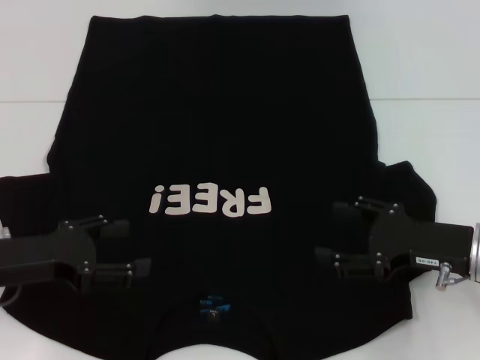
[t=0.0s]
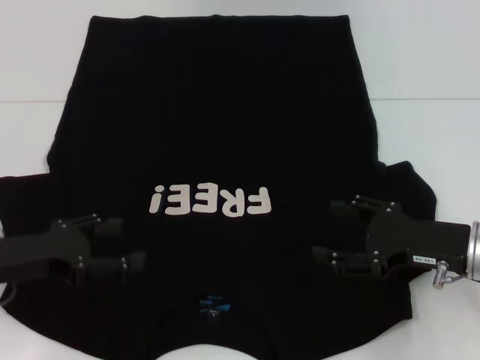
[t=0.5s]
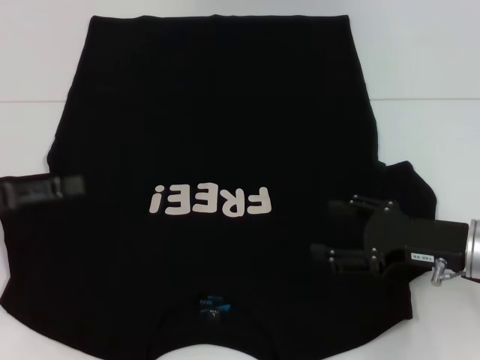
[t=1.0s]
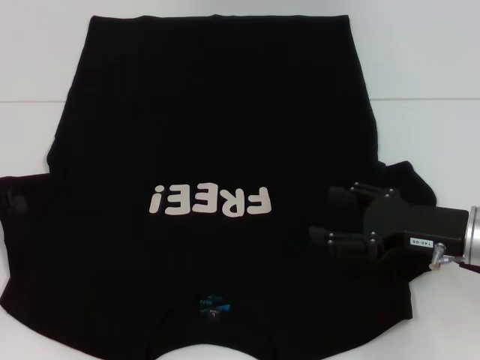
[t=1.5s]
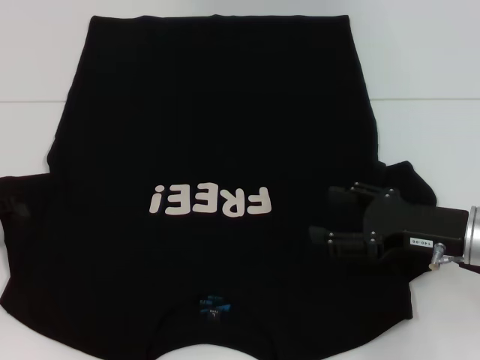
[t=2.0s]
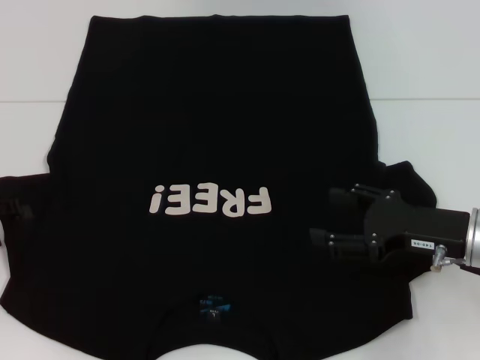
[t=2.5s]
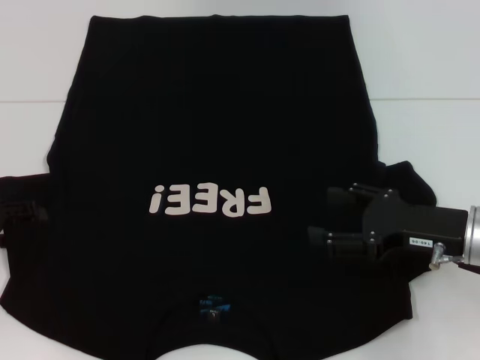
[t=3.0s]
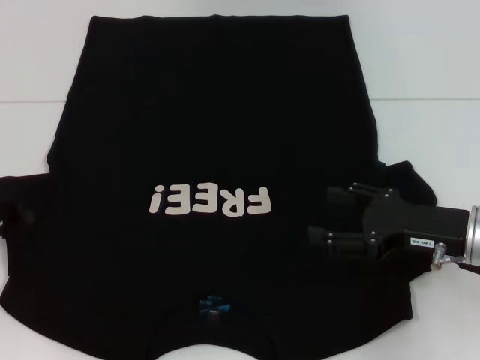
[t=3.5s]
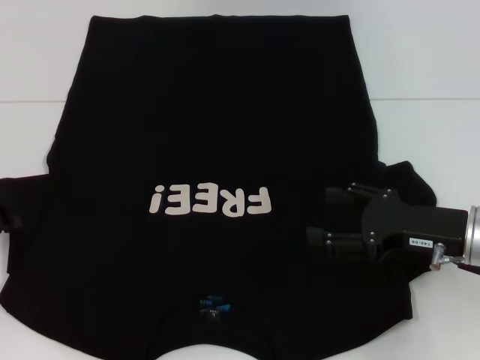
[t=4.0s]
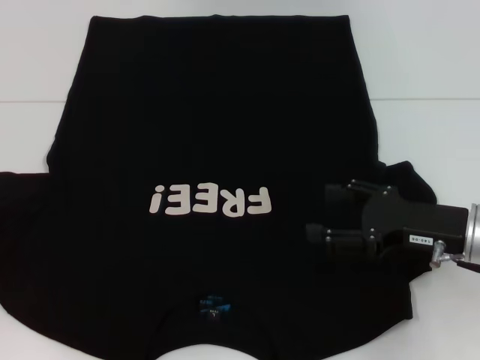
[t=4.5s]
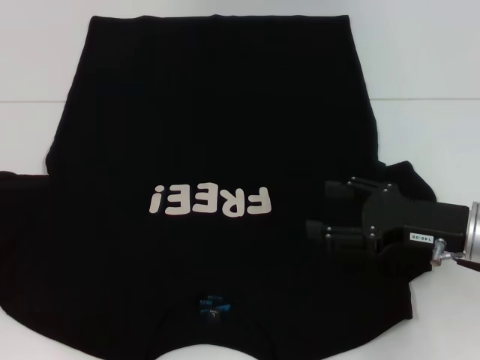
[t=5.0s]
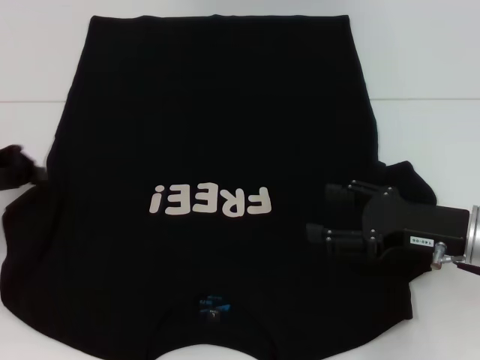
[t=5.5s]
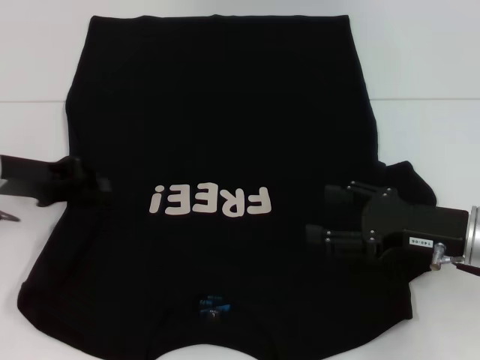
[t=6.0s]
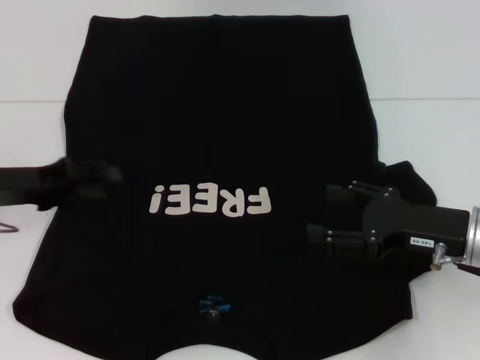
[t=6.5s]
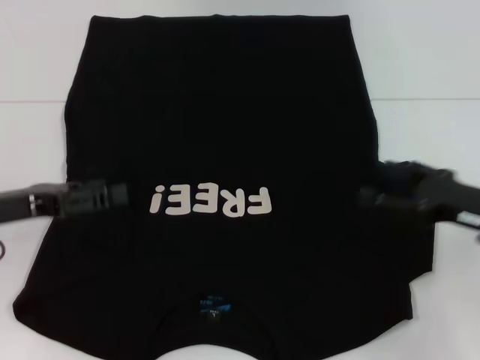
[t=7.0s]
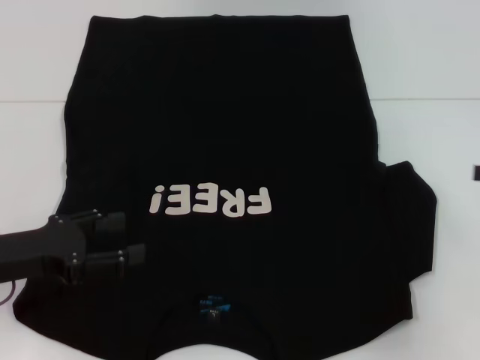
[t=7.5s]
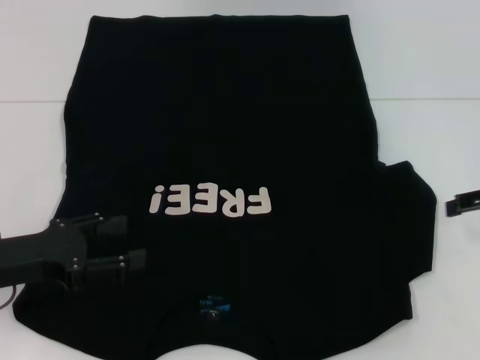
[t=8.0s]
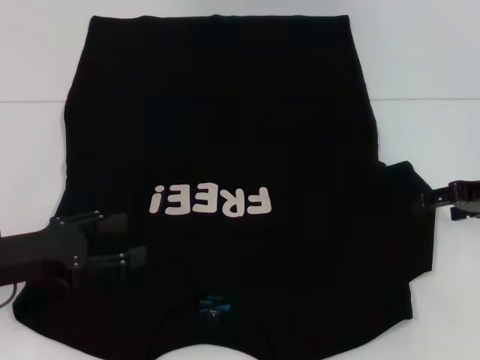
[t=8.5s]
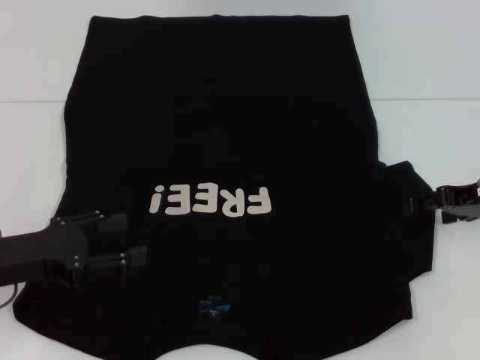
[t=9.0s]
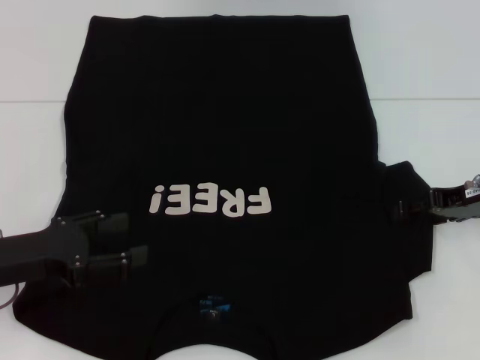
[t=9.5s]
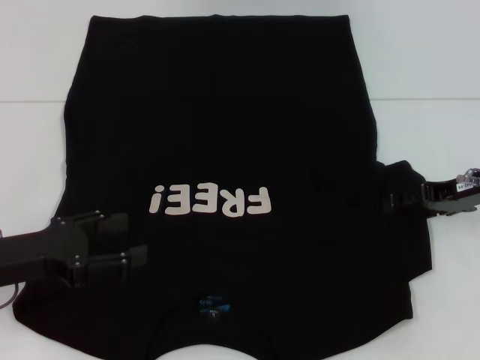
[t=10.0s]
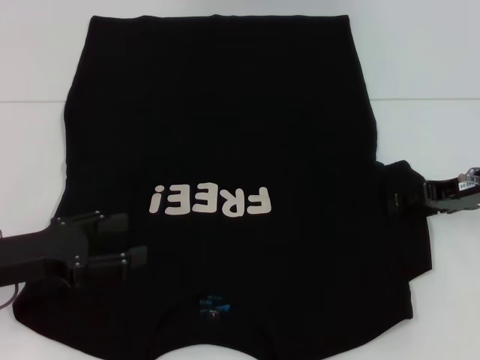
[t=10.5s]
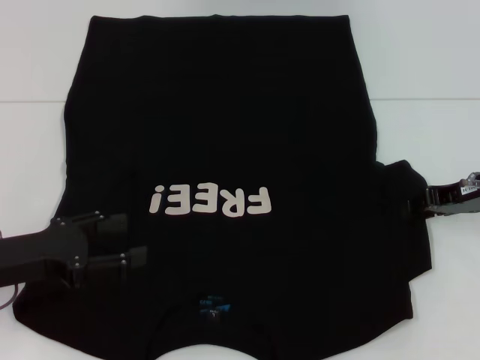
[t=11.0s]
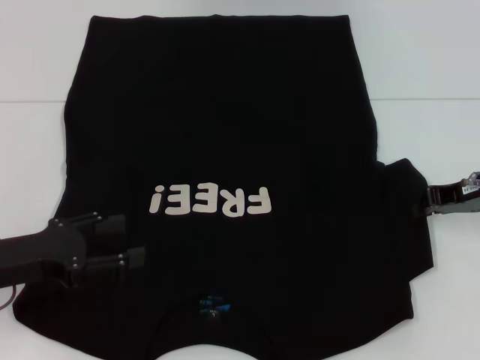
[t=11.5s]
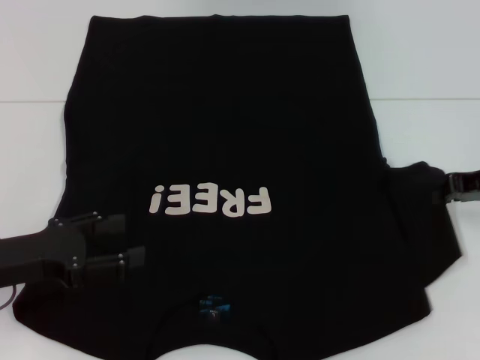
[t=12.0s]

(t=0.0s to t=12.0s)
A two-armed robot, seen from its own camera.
Step, t=0.0s - t=9.0s: Fold the bottom left sleeve with your left hand.
t=4.0s - t=6.0s: The left gripper heads to the right, covering approximately 10 cm.
t=6.0s - t=8.0s: The left gripper heads backward, covering about 10 cm, and opens its fingers, while the right gripper travels to the right and upward by some 10 cm.
t=8.0s - t=10.0s: The right gripper heads to the left, covering roughly 5 cm.
t=10.0s - t=12.0s: The right gripper closes its fingers.

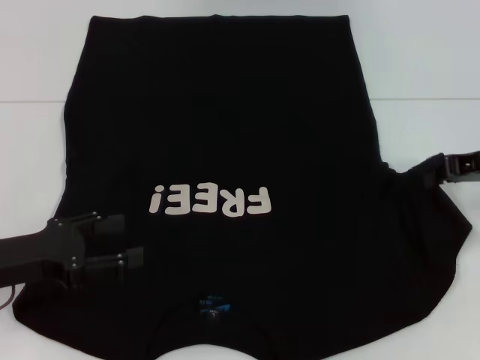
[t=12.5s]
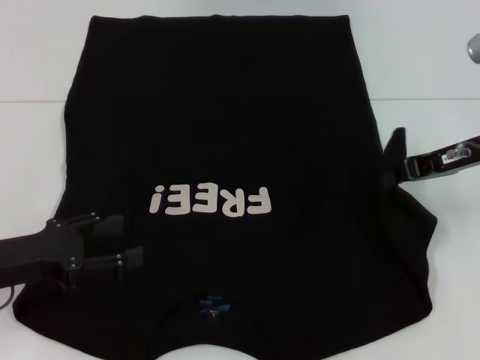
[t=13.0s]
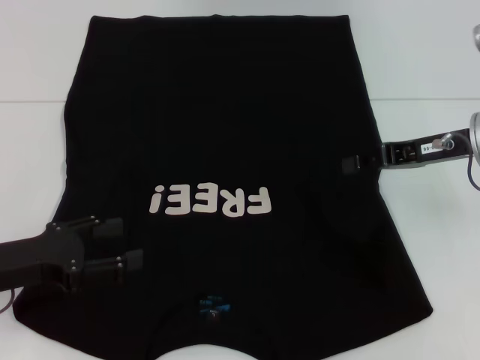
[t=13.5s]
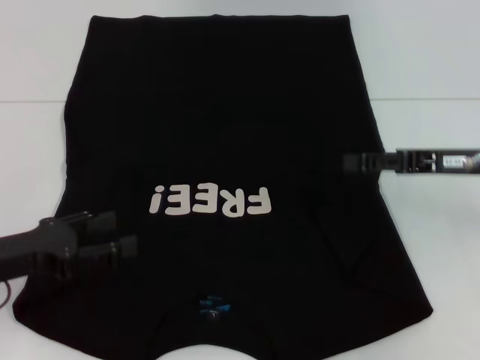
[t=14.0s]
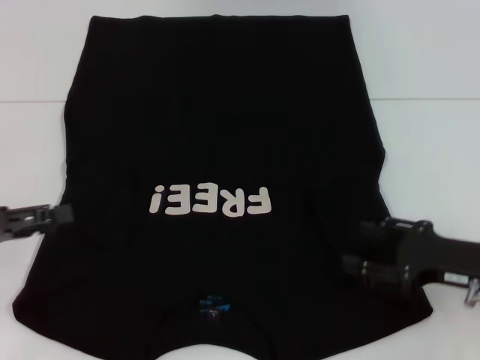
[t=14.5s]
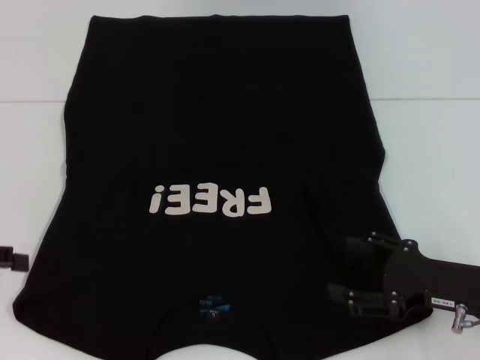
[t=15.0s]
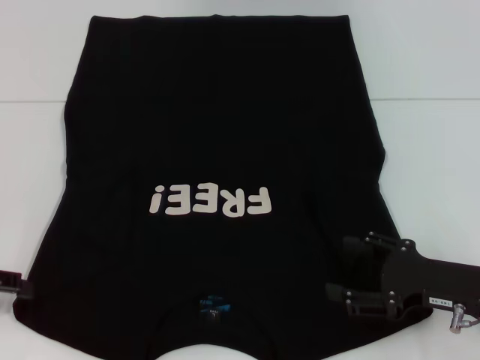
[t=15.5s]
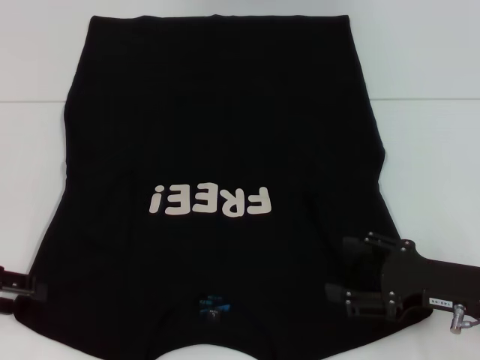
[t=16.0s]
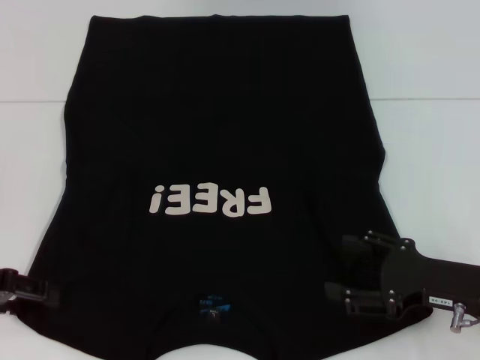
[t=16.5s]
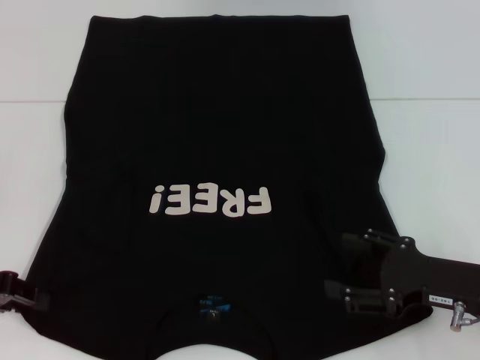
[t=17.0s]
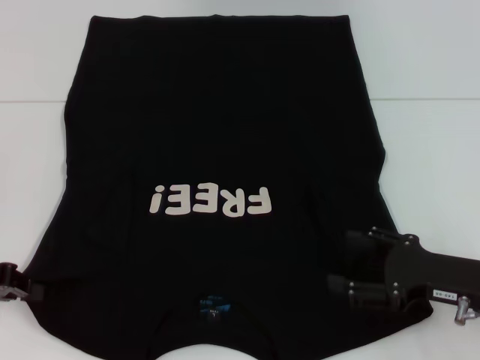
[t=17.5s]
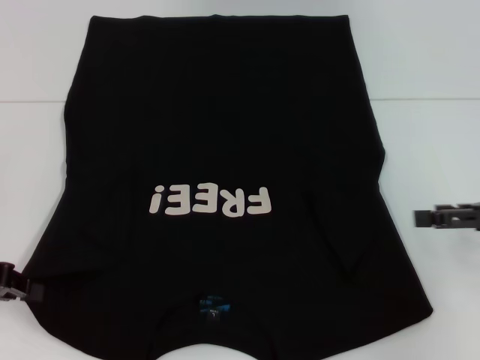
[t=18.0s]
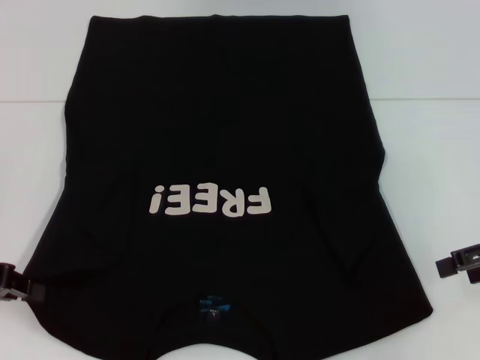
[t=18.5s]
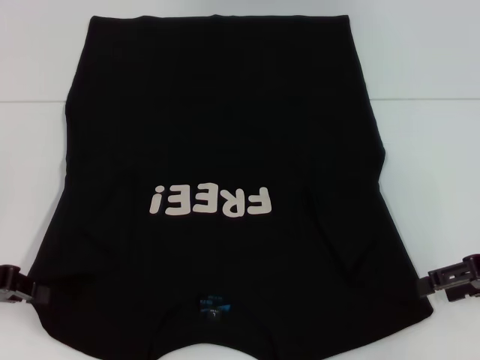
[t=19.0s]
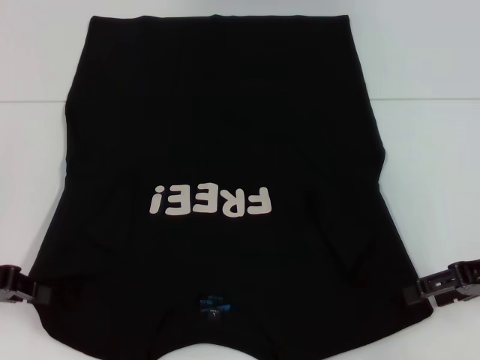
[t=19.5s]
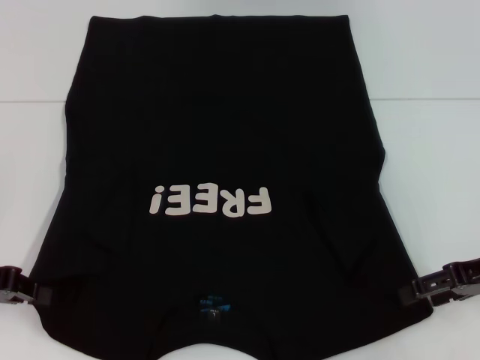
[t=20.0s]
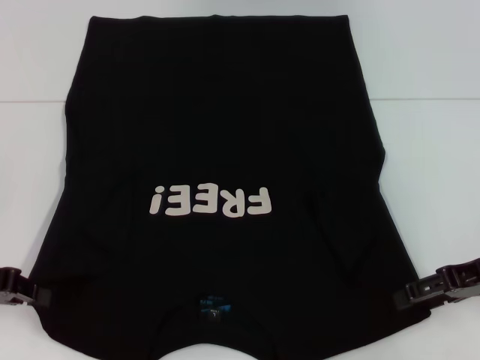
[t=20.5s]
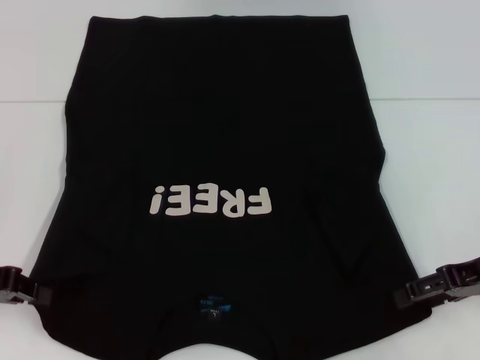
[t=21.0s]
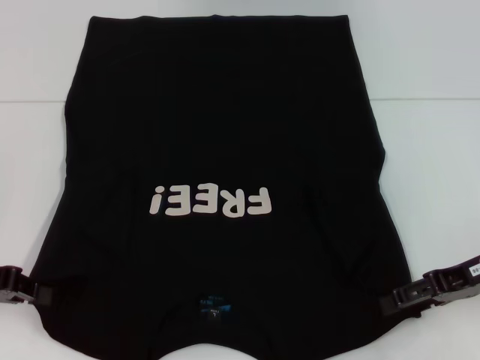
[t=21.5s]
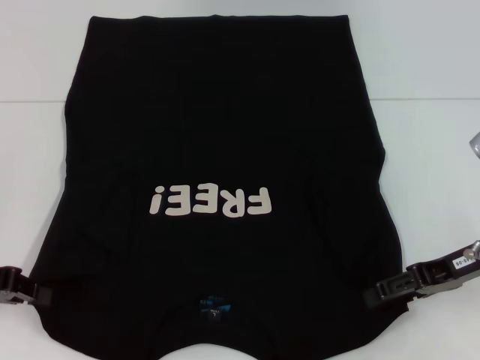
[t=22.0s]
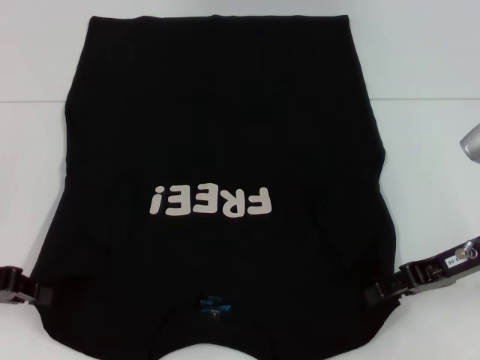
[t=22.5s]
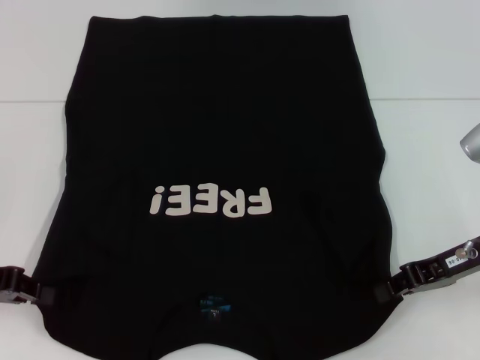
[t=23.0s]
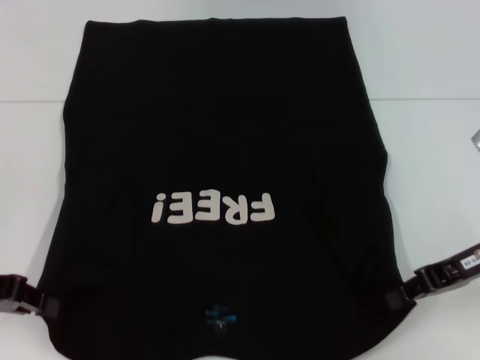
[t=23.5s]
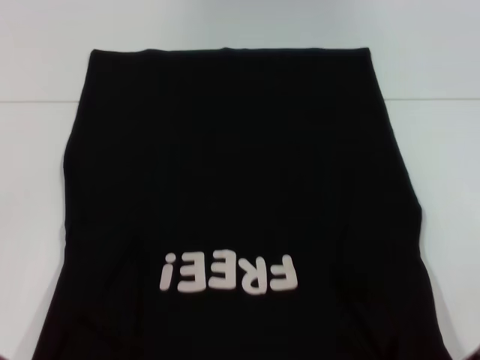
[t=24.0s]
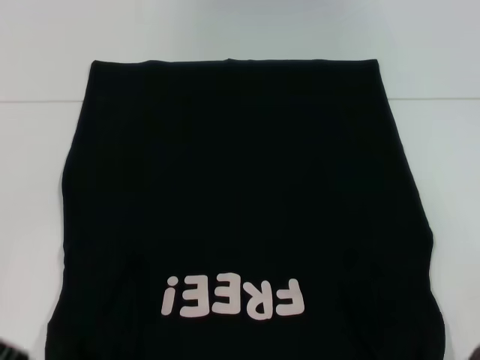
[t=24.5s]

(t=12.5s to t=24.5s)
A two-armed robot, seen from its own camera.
Step, t=14.5s - t=23.0s: Grab the bottom left corner with your left hand.
Step, t=14.5s - t=23.0s: Grab the bottom right corner with your right hand.
t=12.5s - t=14.5s: The right gripper heads backward and downward, covering roughly 15 cm, and opens. The left gripper travels to the left by roughly 5 cm.
t=16.5s - t=18.5s: The left gripper closes. The right gripper heads upward, to the right and forward, covering about 15 cm.
t=18.5s - t=20.5s: The right gripper moves some 5 cm.
t=20.5s - t=22.5s: The grippers stay close to where they were, moving slightly.
t=22.5s - t=24.5s: The right gripper goes some 5 cm backward, and closes.

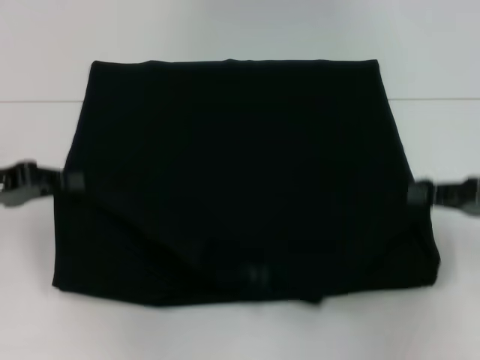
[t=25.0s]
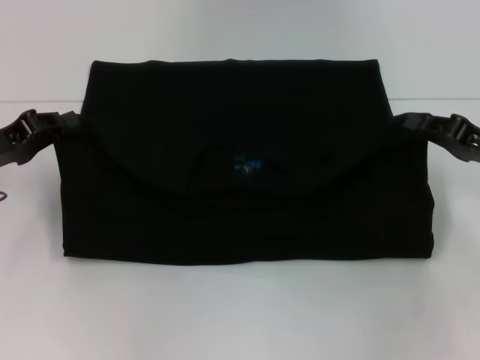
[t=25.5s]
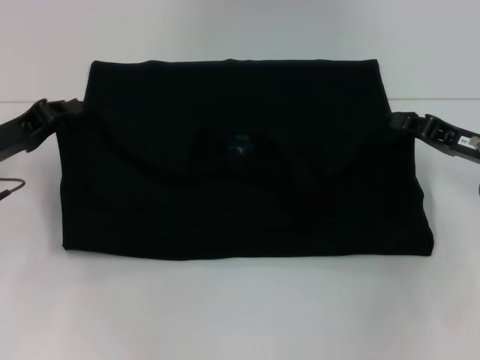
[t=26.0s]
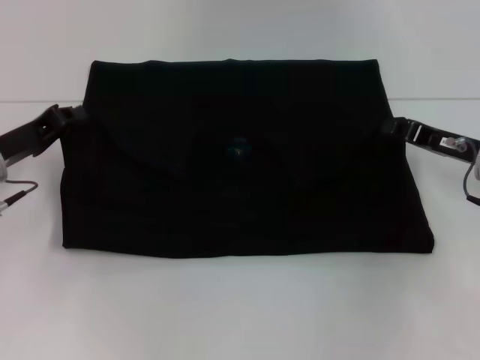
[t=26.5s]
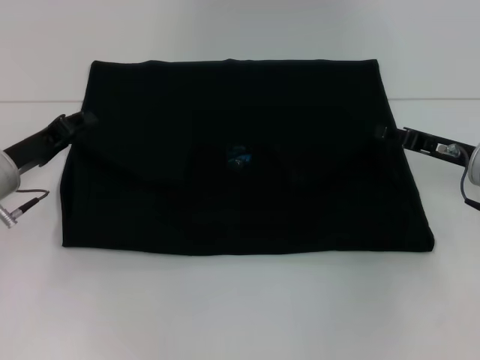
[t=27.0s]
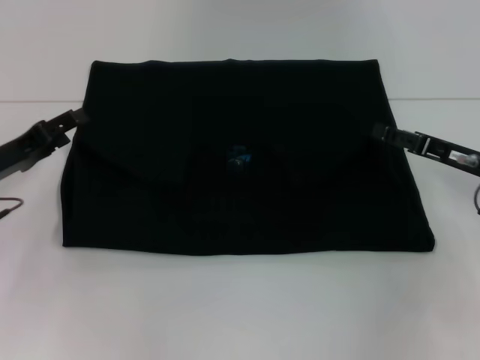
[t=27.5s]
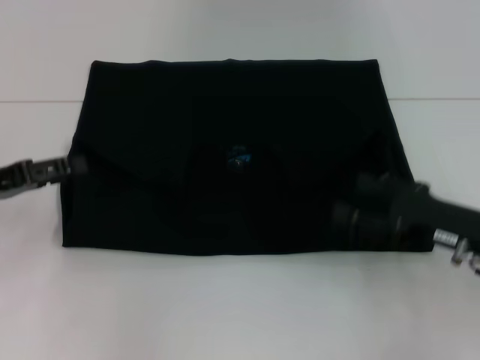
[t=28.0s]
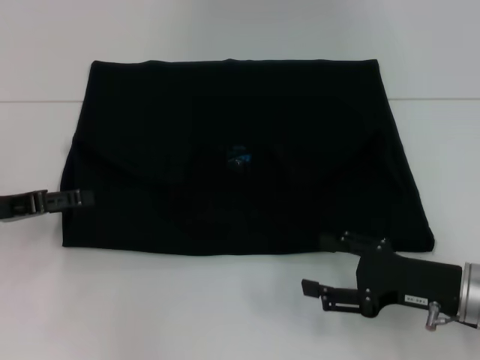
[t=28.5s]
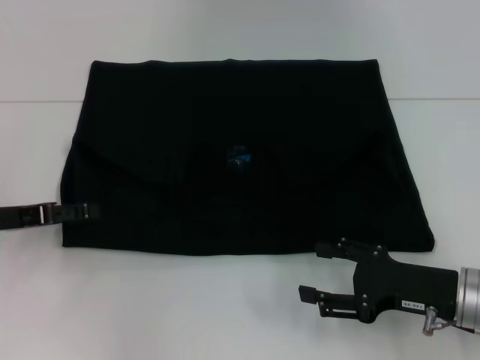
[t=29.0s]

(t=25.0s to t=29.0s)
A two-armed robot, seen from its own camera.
Step, t=25.0s - t=28.0s: Fold the clothes with your left hand.
Step, t=25.0s - t=28.0s: Fold the clothes with your right hand.
t=25.0s - t=27.0s: The left gripper goes approximately 10 cm downward and to the right; the right gripper heads forward and to the left, covering about 10 cm.
t=27.0s - t=29.0s: The right gripper shifts roughly 10 cm backward, and opens, while the left gripper ends up some 5 cm from where it was, and opens.
